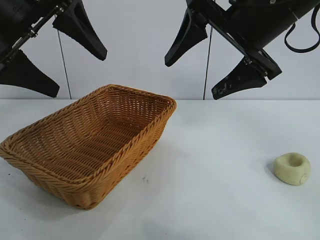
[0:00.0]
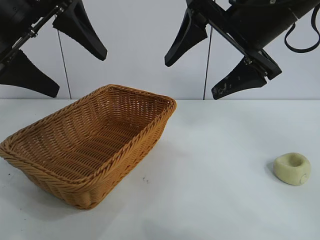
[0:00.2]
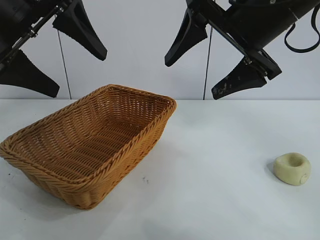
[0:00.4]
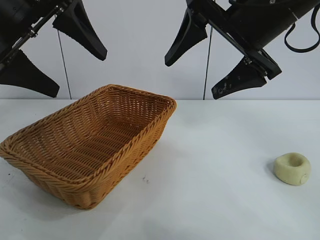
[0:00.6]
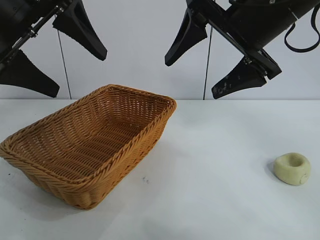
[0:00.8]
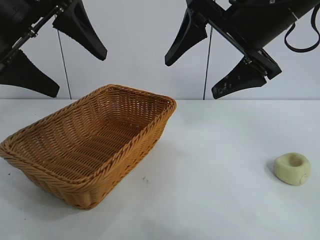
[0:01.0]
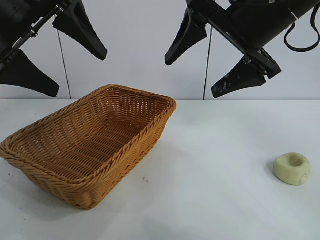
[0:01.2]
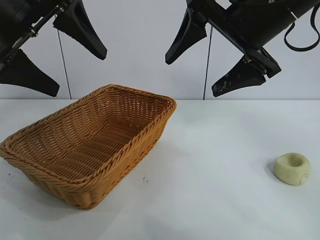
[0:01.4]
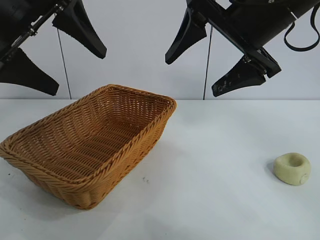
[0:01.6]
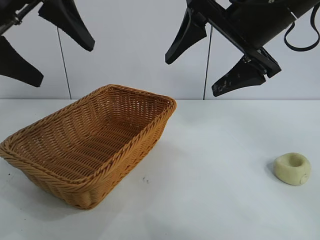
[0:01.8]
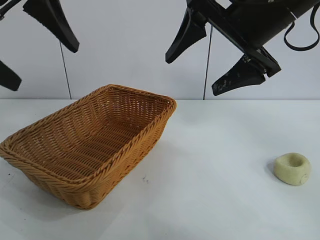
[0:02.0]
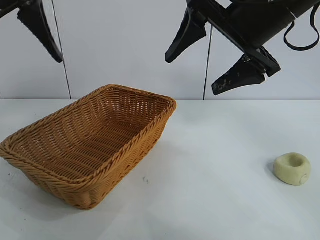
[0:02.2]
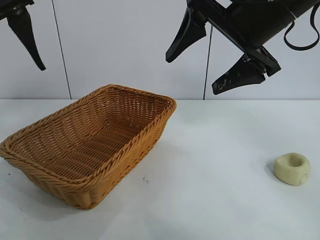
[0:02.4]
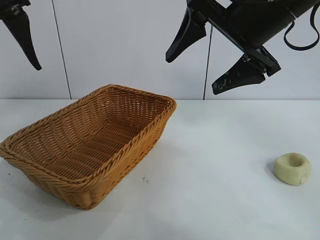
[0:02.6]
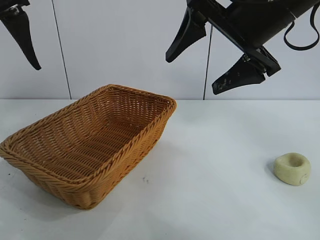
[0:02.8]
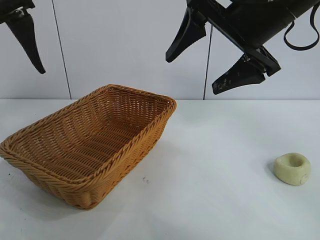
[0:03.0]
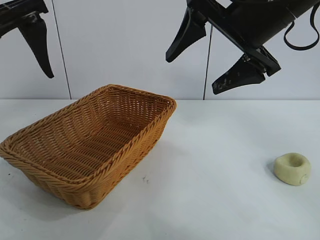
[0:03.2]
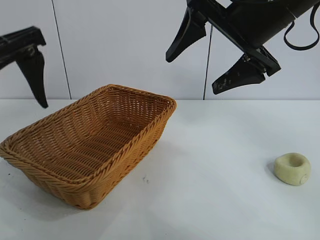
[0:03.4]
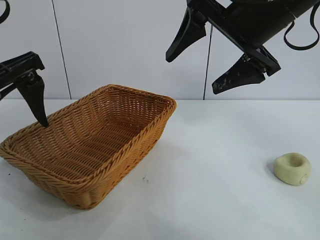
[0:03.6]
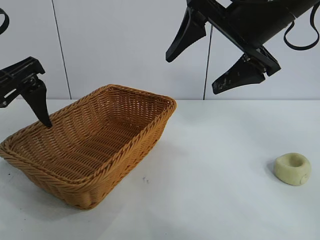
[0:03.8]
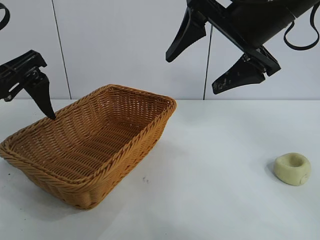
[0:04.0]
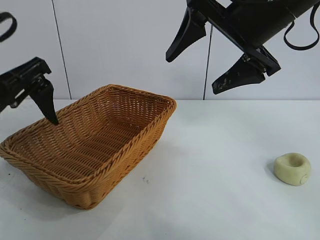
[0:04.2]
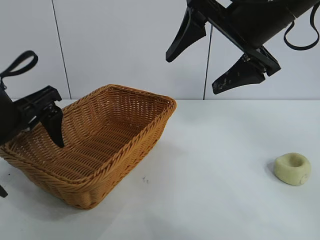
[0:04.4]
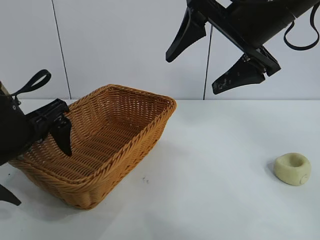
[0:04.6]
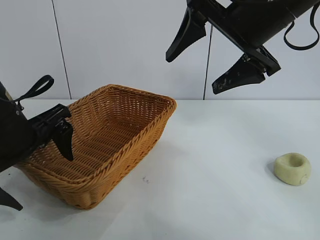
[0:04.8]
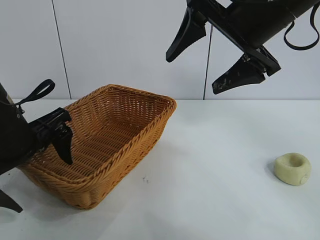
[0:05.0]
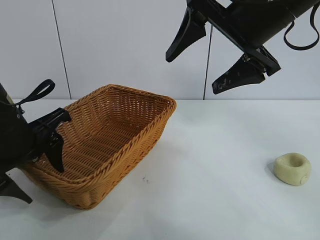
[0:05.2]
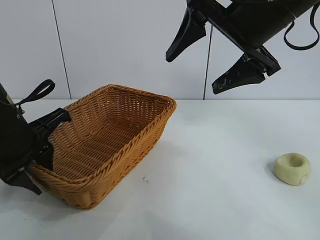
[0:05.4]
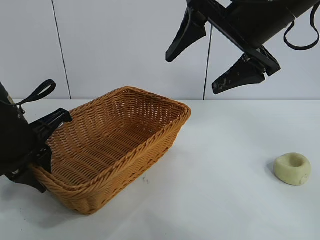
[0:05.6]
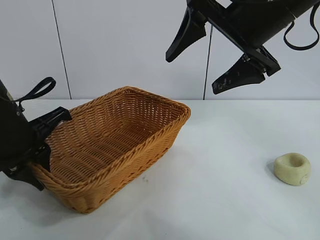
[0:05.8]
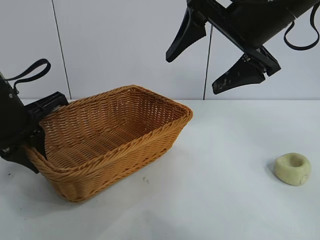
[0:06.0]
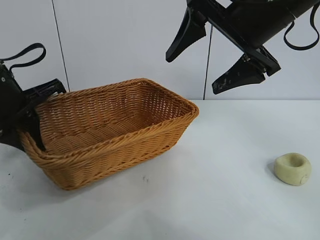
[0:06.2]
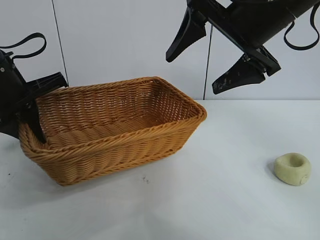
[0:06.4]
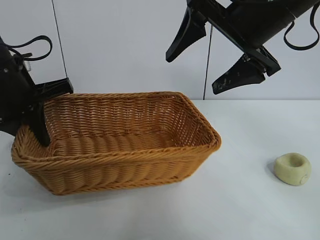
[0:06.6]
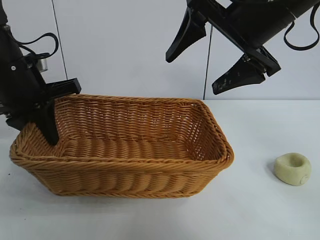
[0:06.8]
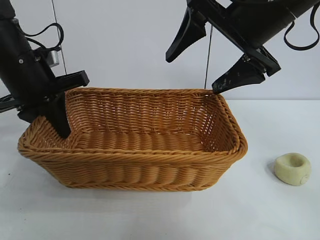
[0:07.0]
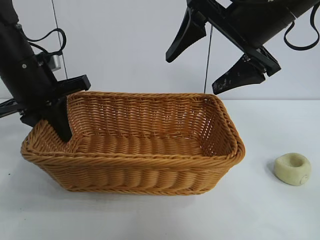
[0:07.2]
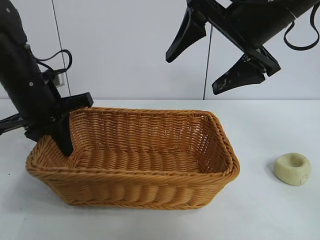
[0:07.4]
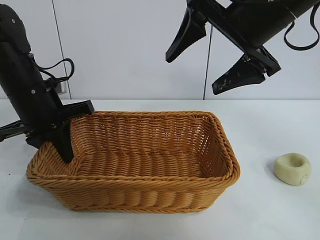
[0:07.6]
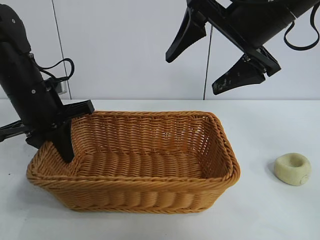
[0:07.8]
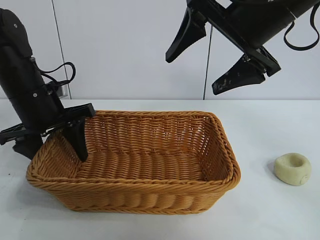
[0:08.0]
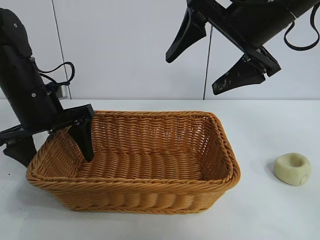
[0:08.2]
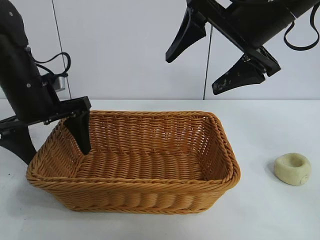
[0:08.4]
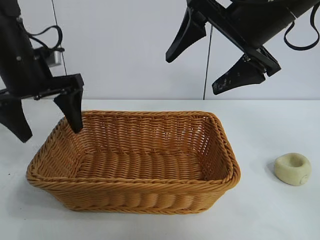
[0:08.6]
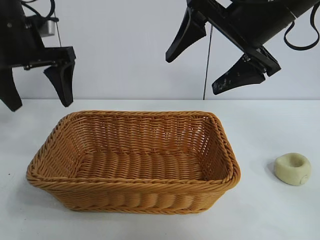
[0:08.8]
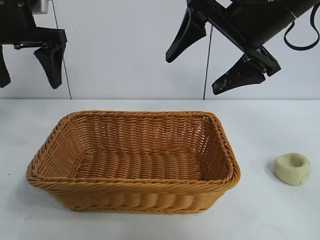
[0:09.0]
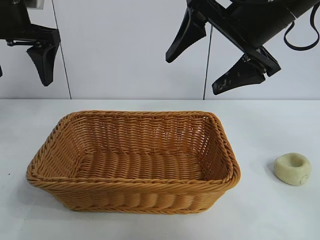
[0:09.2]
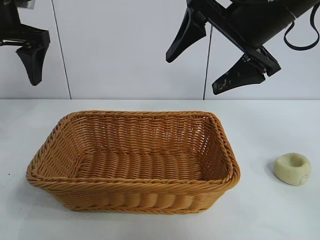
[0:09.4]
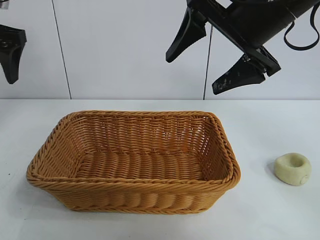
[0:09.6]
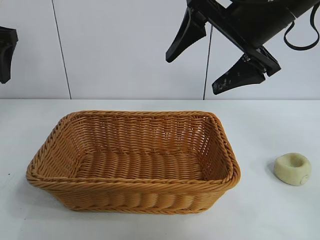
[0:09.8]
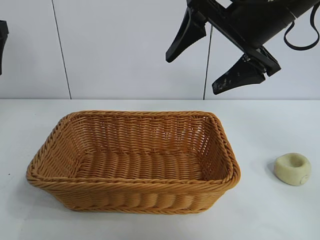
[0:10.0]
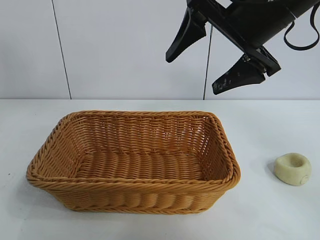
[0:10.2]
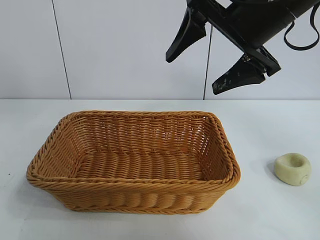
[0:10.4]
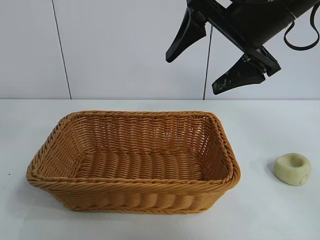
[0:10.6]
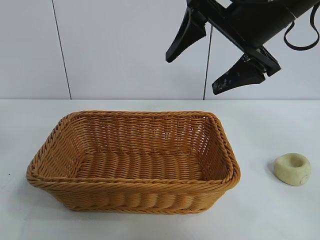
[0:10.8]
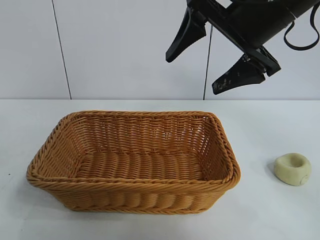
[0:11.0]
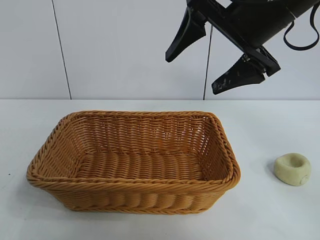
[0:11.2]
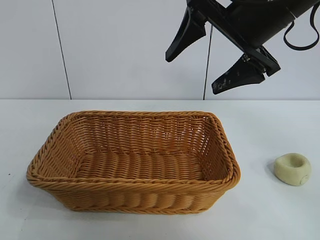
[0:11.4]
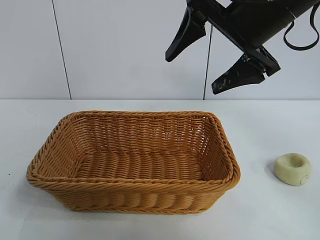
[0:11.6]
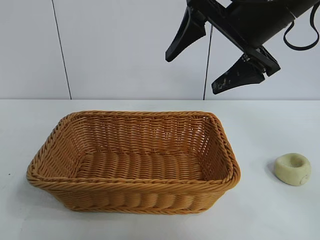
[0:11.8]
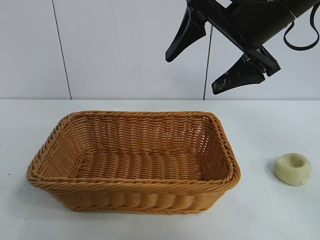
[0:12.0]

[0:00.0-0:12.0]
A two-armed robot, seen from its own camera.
Task of the whole recording: pick up the egg yolk pastry and put it into the basket.
Step, 0:01.0 to 0:05.6: Grasp the basket with left gripper.
Step, 0:05.8 to 0:08.4: Place the basket in the center of view with left gripper.

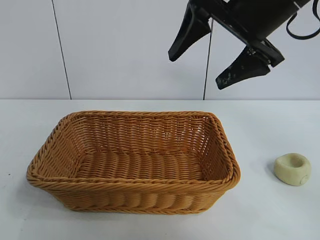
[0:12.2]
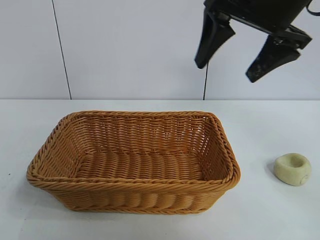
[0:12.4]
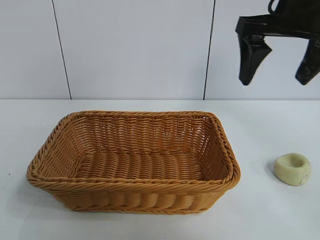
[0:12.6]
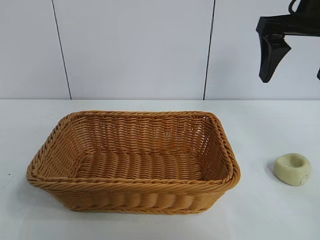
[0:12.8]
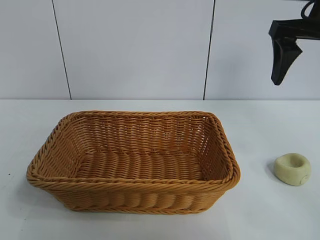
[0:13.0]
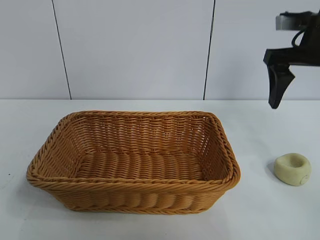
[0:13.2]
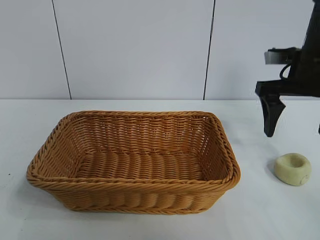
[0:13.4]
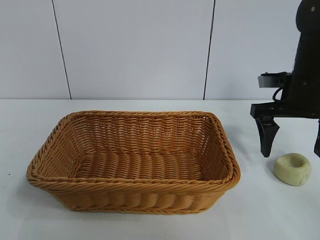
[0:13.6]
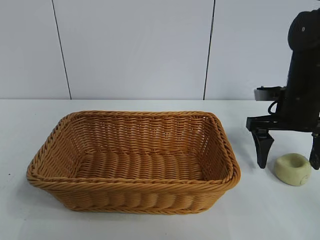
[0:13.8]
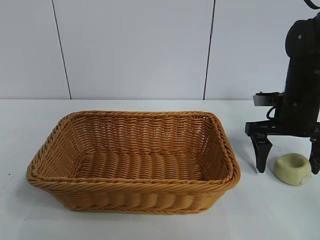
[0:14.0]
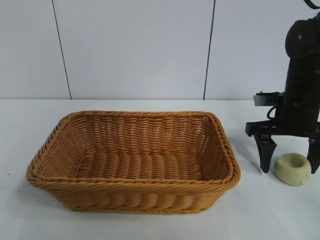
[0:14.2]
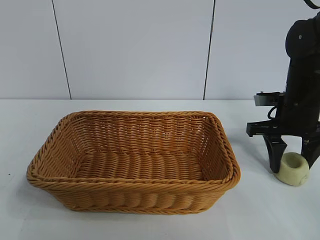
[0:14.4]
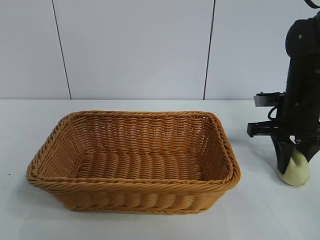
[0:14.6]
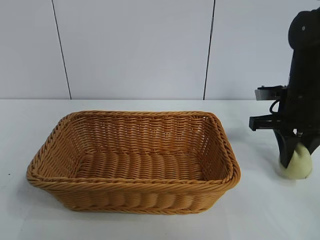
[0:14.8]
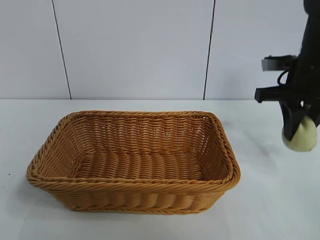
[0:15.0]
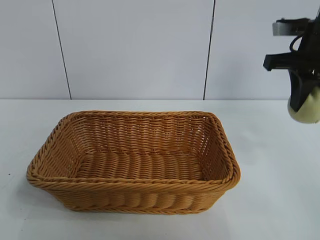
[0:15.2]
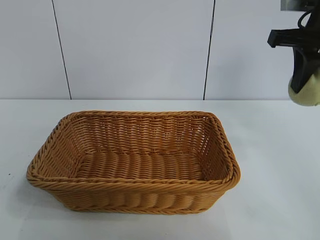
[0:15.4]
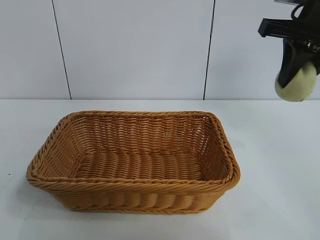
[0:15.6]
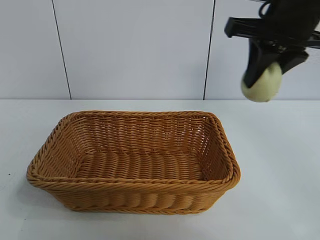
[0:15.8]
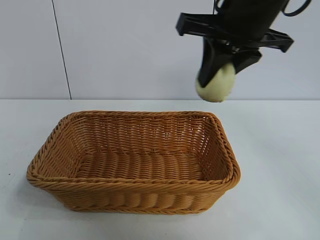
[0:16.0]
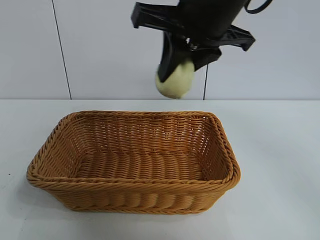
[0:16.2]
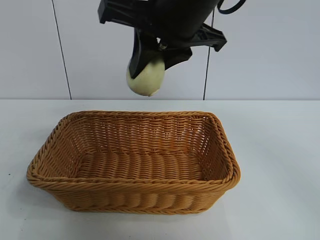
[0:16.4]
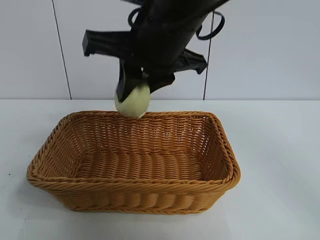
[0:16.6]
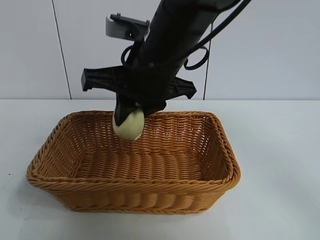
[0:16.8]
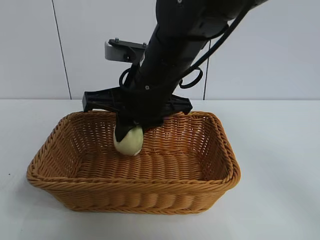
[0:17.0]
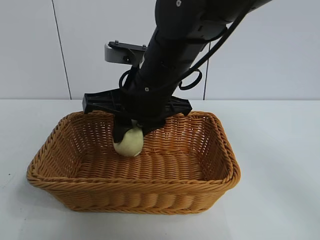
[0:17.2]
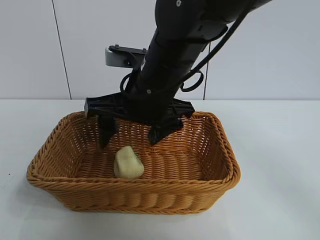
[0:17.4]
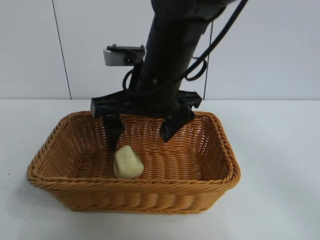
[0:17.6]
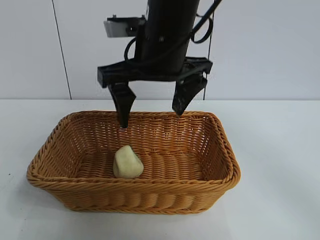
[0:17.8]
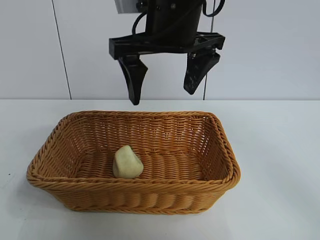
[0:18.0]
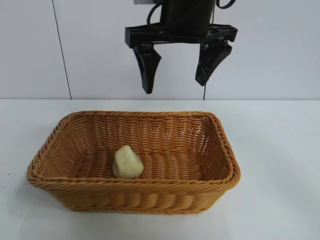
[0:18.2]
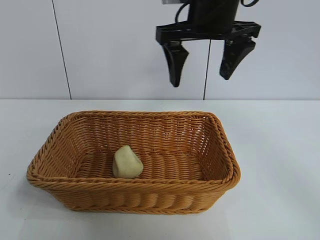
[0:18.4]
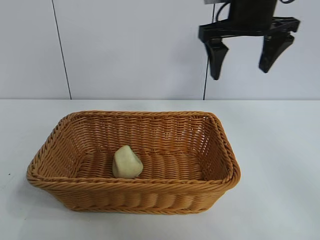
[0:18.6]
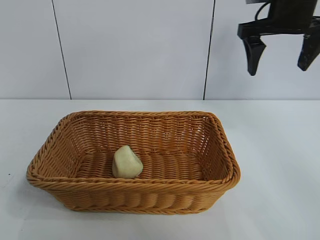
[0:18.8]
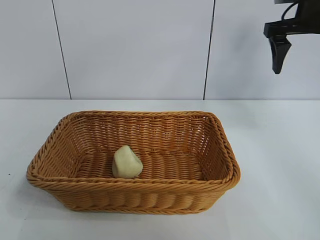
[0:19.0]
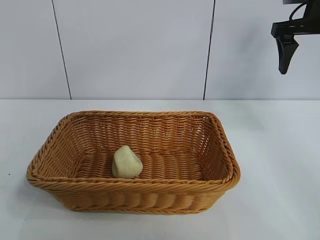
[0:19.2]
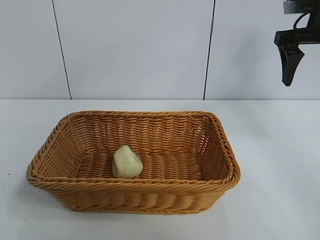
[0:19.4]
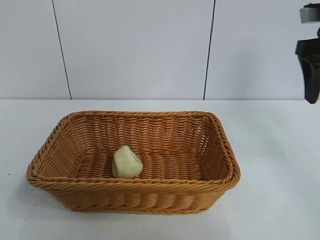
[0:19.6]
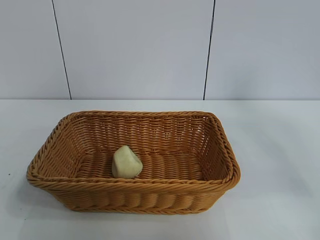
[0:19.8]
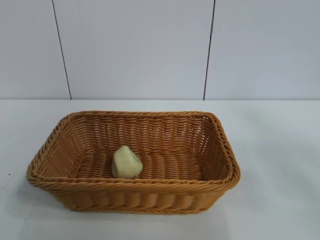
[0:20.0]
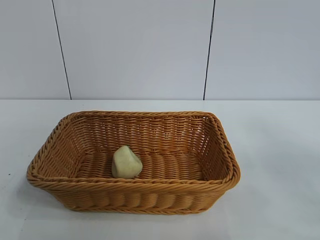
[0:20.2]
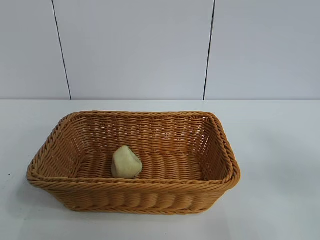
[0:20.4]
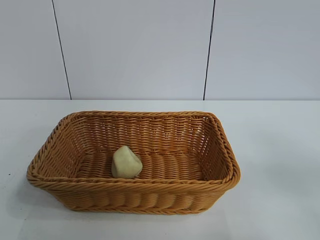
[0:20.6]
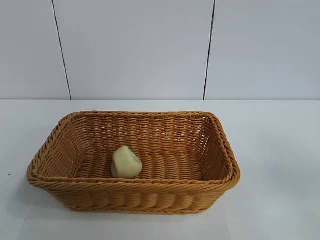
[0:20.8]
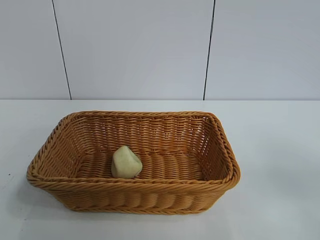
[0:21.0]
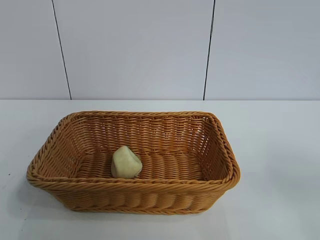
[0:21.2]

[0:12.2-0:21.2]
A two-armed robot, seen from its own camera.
Task of the whole recording: pick up the egg yolk pastry and put it into the basket.
Step, 0:12.2 to 0:14.6: Grasp egg yolk pastry with right gripper.
Step, 0:14.8 to 0:17.6: Place the egg yolk pastry in the basket with right gripper.

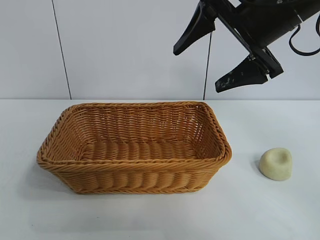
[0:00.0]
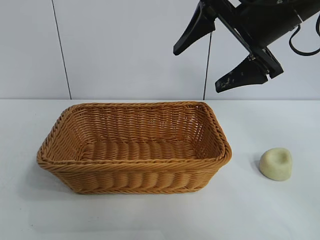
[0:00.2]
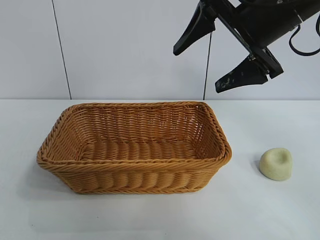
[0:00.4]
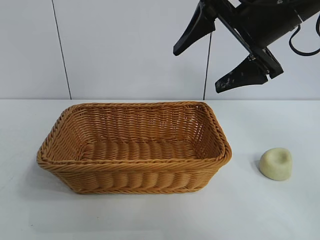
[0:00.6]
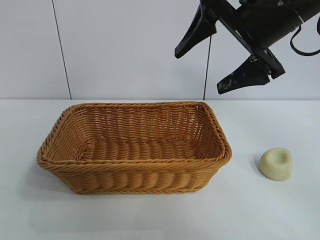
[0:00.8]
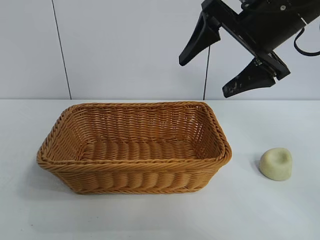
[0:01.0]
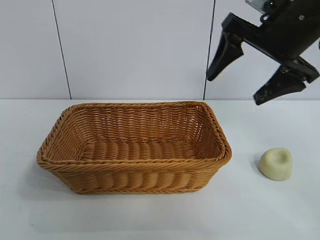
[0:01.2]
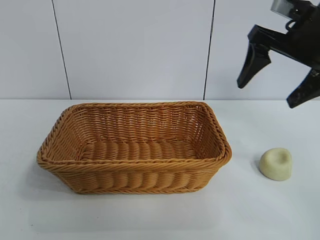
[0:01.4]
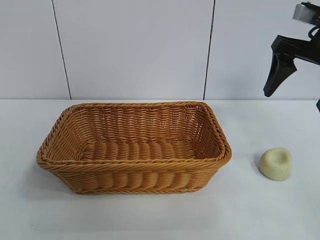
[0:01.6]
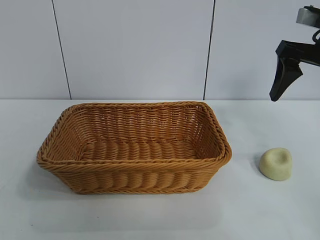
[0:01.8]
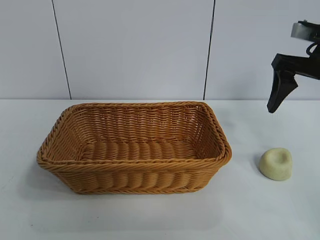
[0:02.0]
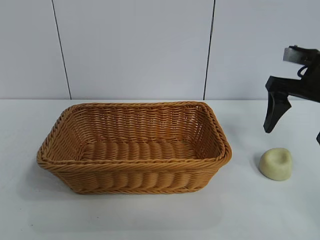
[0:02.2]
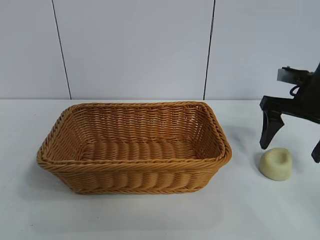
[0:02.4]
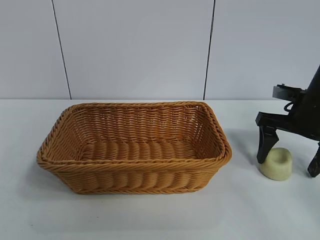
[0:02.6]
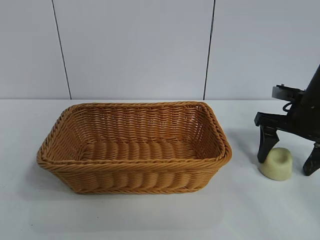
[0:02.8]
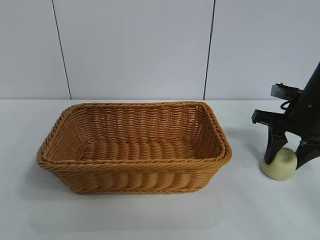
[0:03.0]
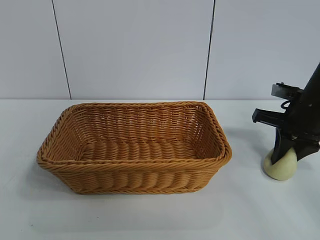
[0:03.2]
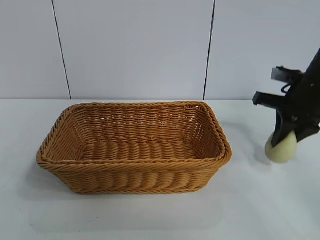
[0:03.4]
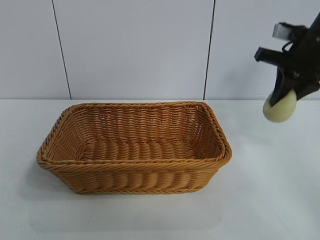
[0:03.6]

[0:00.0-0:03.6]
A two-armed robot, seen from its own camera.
Task of the whole recording: pick up the egg yolk pastry and put it into the basket.
Step, 0:00.0 to 0:03.0: Grasp egg yolk pastry with right gripper.
